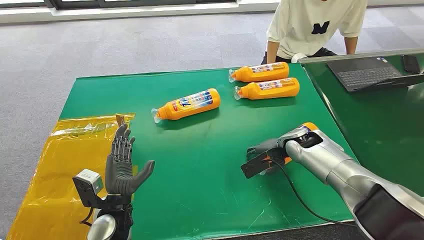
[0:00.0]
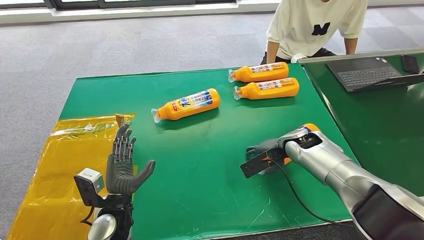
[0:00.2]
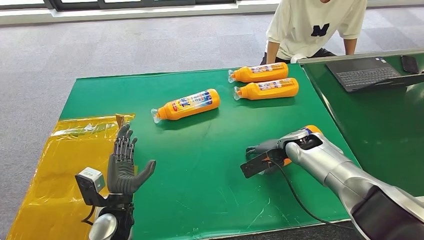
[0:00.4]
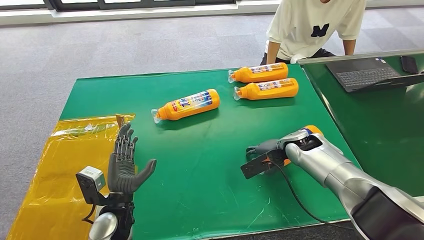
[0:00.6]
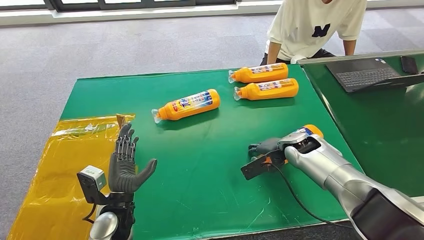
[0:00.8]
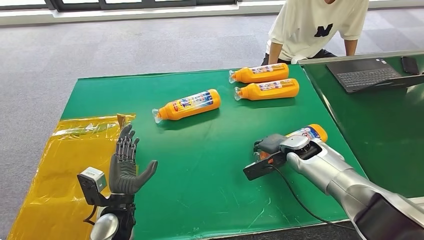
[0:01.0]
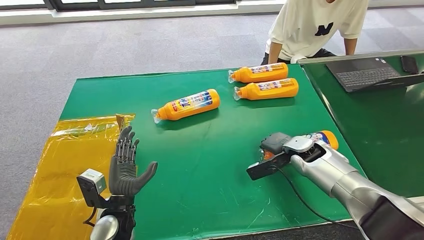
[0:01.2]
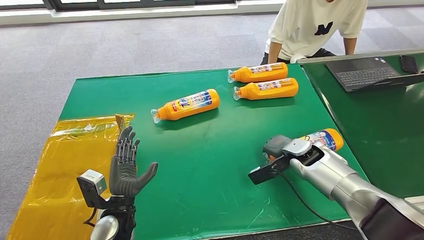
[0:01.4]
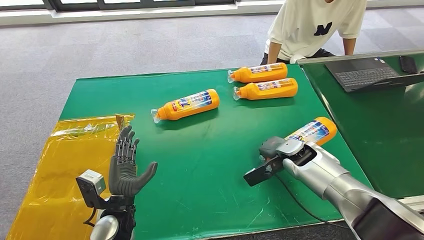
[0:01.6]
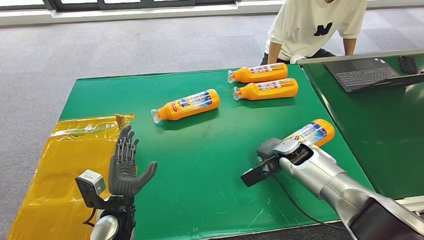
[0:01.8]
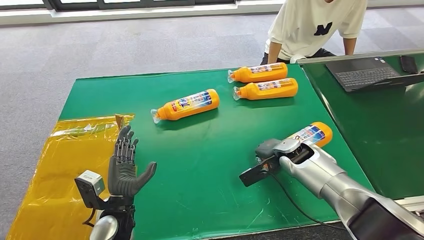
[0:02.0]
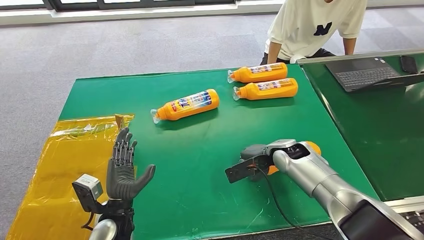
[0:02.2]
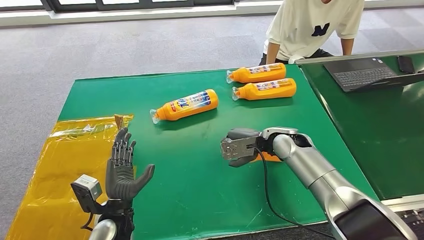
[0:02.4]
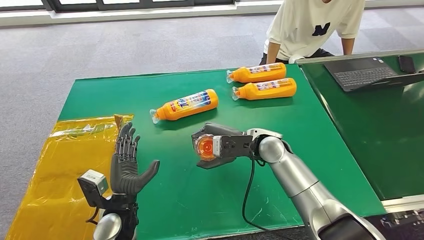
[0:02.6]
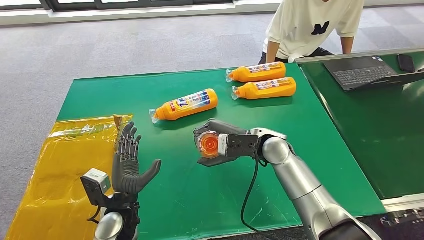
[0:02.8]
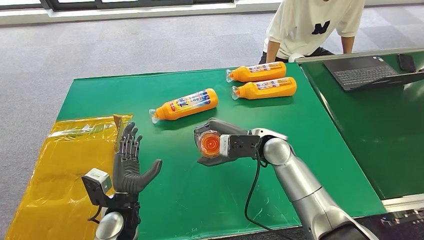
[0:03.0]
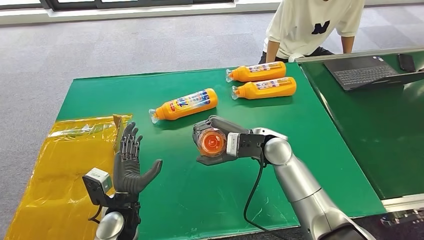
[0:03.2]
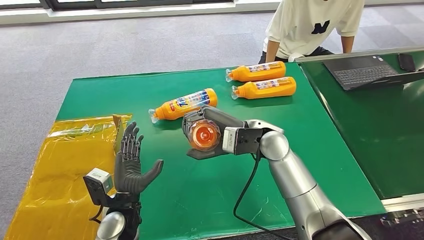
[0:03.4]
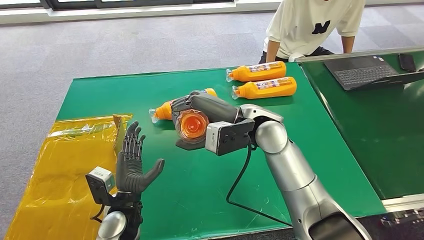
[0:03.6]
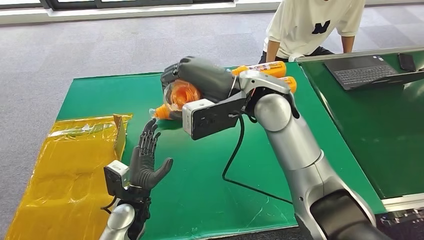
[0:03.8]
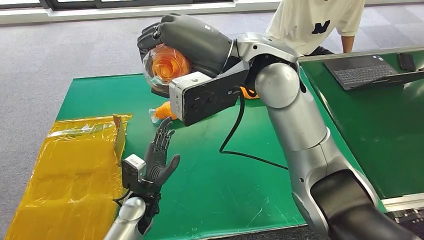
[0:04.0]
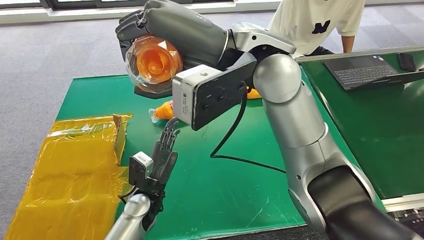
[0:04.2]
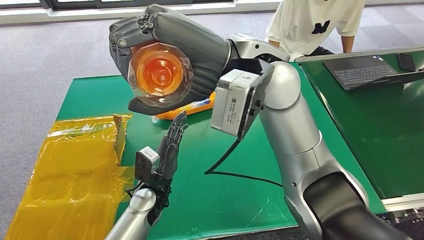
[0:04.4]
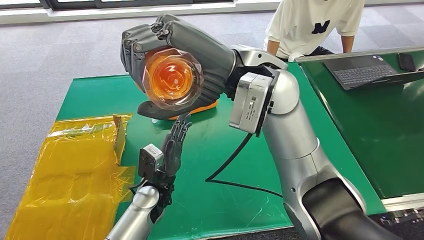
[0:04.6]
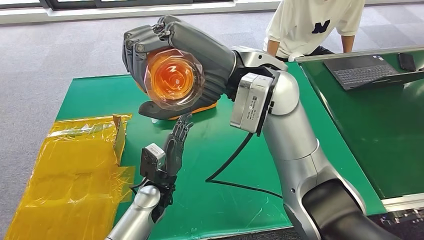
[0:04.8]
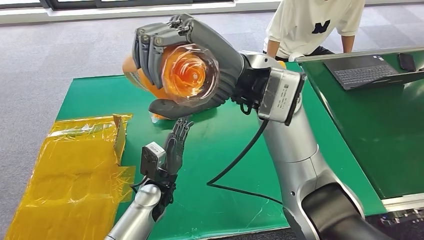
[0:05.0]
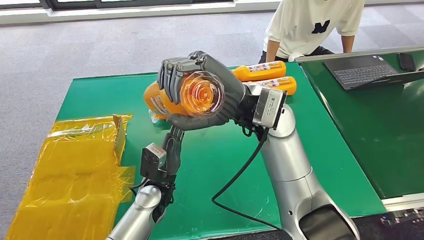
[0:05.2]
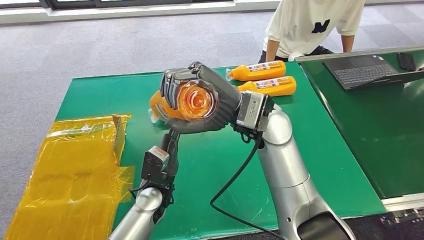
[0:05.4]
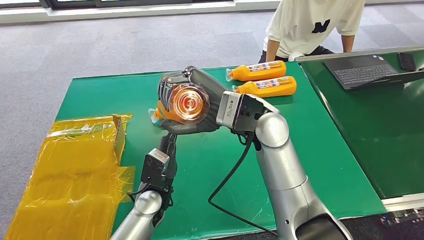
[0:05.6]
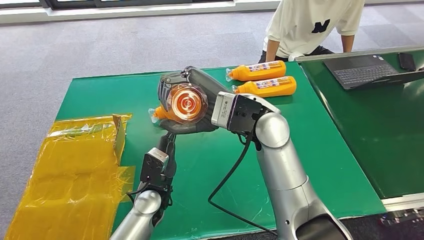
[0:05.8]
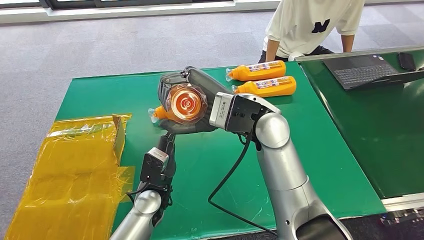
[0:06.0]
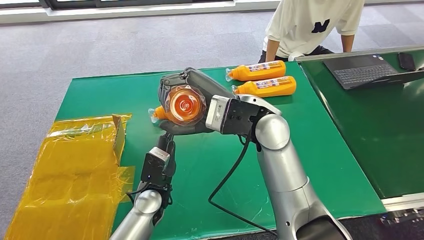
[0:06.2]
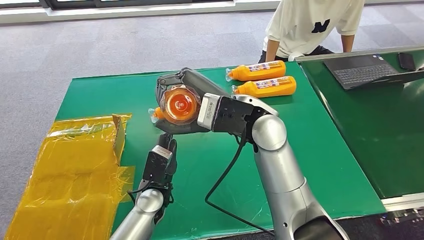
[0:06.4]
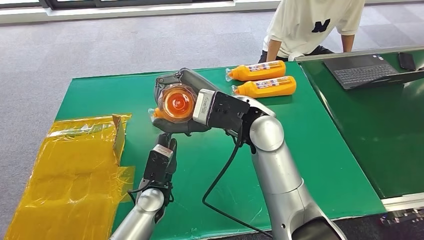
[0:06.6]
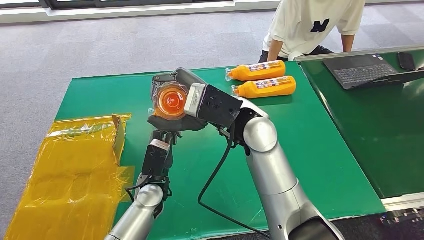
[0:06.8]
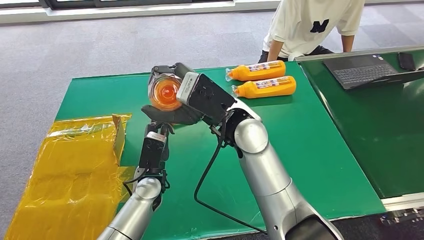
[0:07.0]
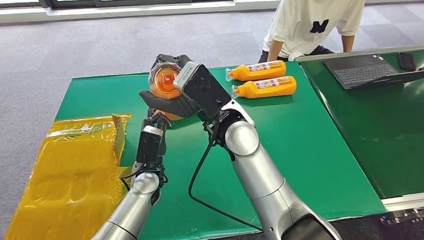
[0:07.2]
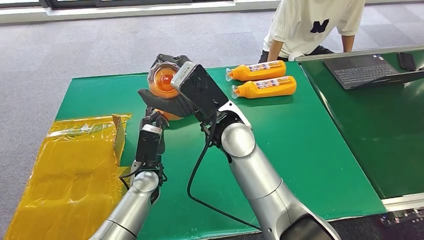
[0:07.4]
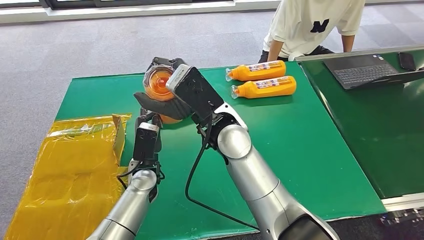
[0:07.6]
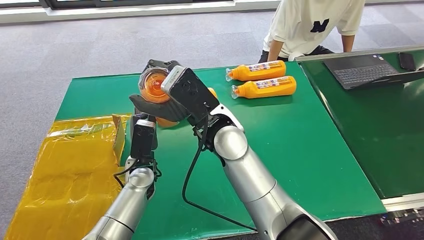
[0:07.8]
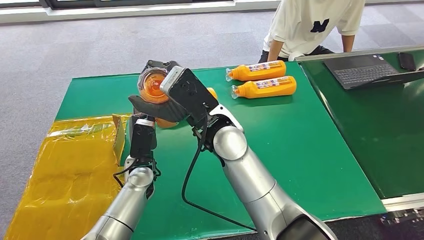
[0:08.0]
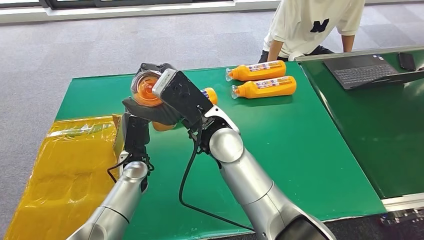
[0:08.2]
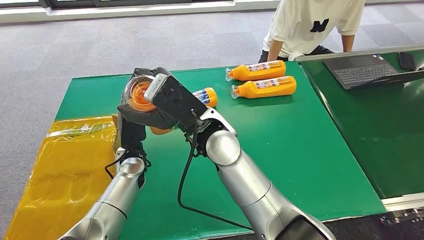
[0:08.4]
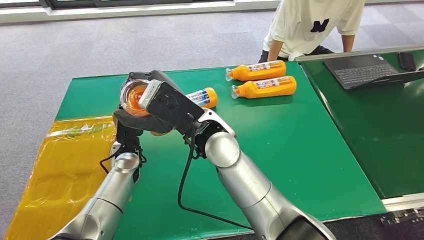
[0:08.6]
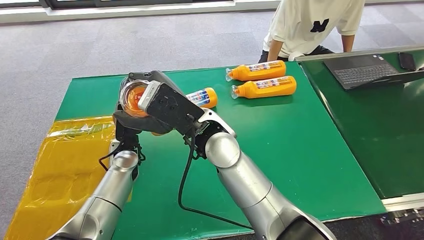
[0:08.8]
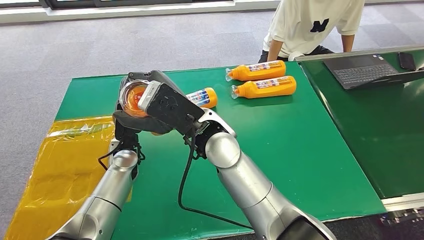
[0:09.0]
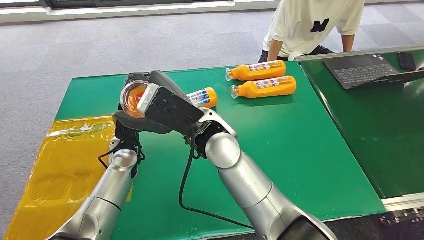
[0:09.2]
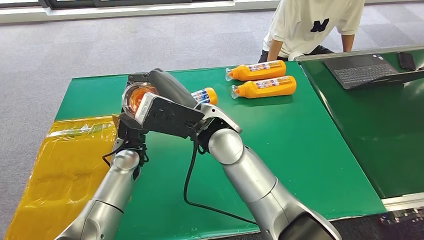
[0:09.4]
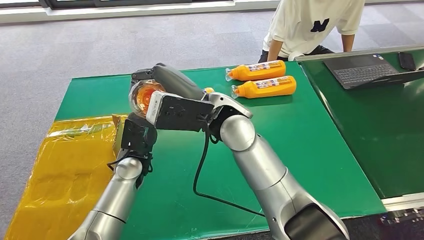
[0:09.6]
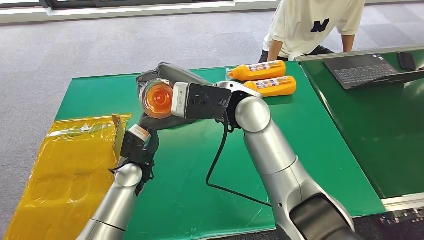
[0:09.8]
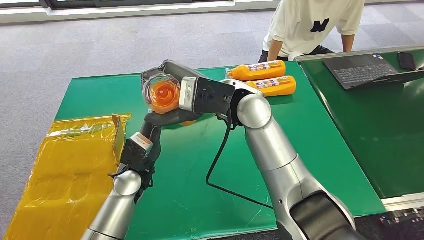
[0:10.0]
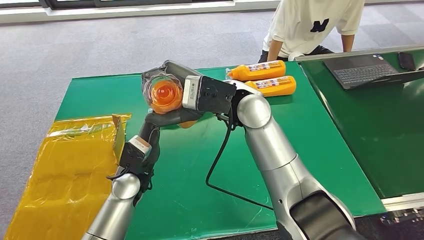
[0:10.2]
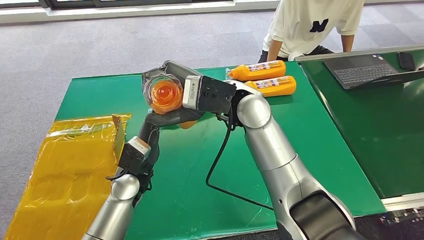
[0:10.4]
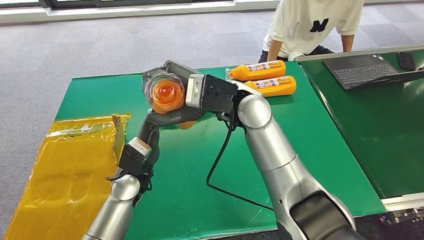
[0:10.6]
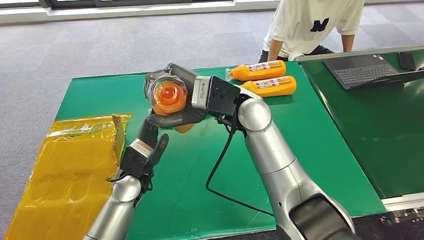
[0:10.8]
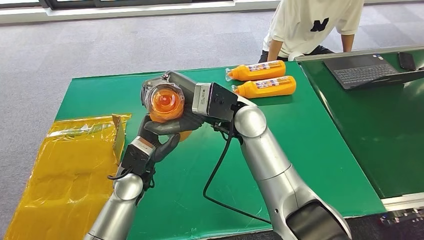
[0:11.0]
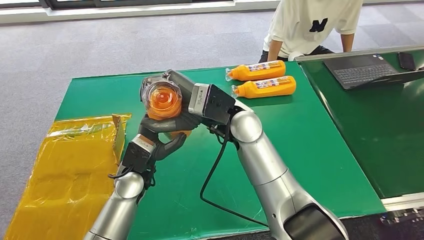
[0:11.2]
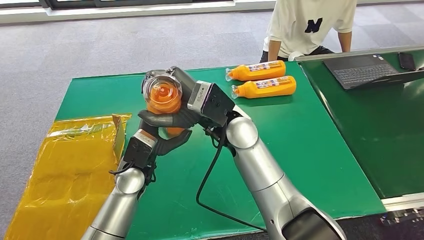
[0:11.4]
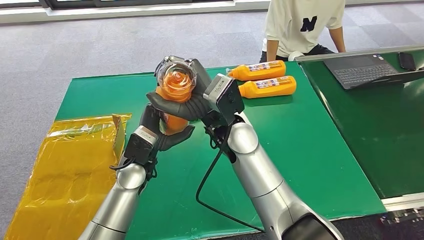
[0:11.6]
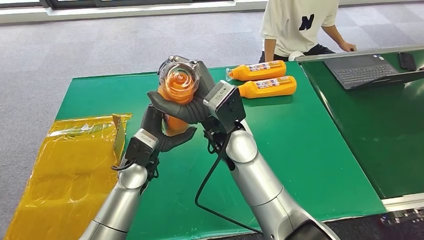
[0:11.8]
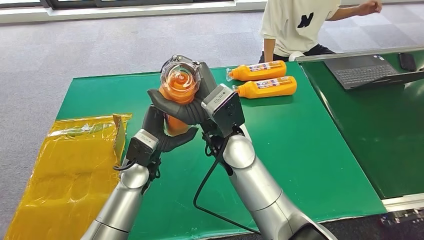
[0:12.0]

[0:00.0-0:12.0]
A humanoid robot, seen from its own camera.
Step, 0:00.0 to 0:03.2: Pick up the bottle from the table.
0:06.0 to 0:07.6: The left hand changes place by about 5 cm, while the right hand travels to the left by some 5 cm.
0:07.6 to 0:09.0: The left hand heads to the left, covering approximately 5 cm.

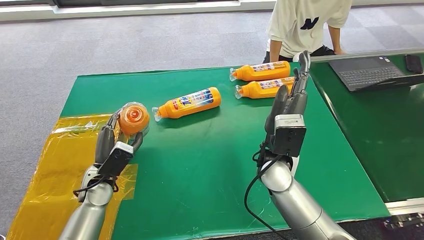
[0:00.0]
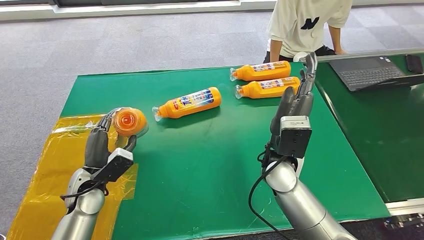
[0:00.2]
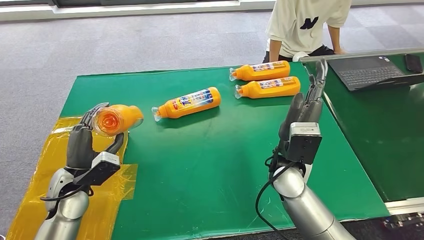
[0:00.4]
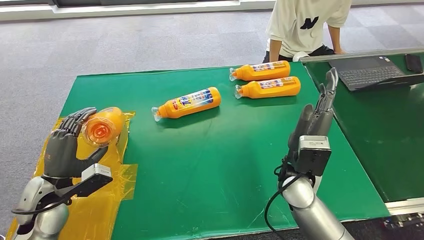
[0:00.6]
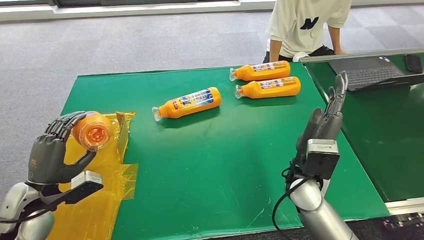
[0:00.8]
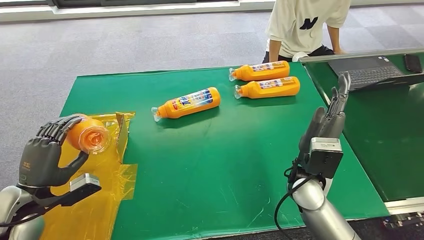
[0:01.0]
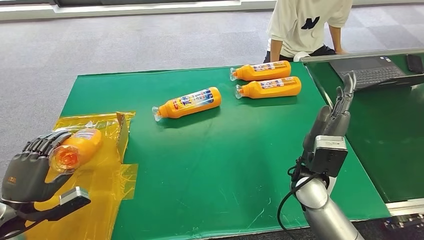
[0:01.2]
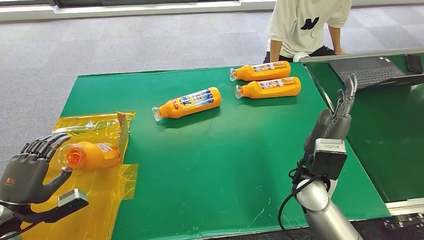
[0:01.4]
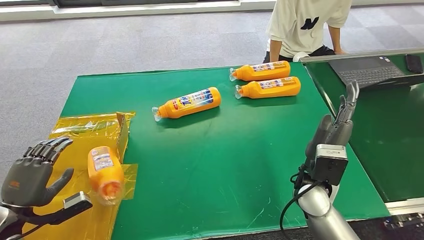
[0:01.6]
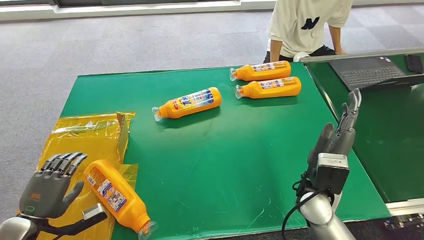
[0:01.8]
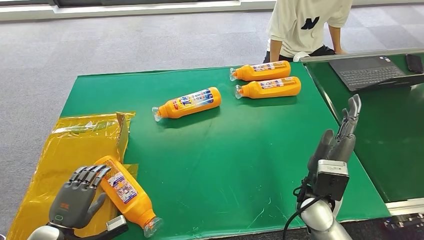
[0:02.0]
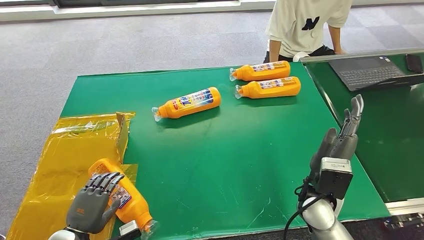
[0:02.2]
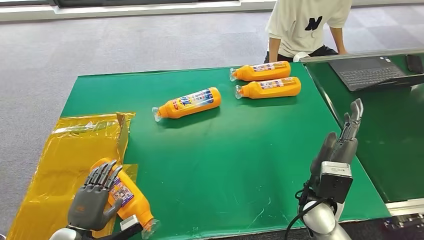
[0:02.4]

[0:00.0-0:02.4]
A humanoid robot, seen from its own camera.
Step, 0:00.0 to 0:02.2: Turn the bottle to the front side.
0:01.2 to 0:02.4: The right hand changes place by some 5 cm, while the left hand moves downward and to the right, roughly 15 cm.
